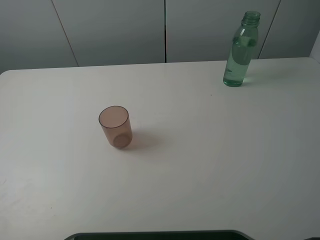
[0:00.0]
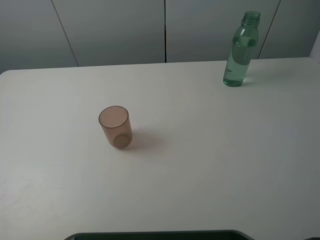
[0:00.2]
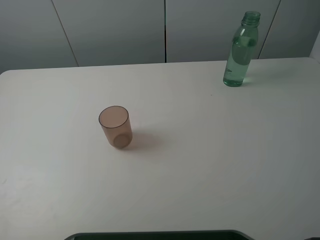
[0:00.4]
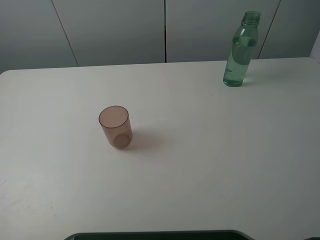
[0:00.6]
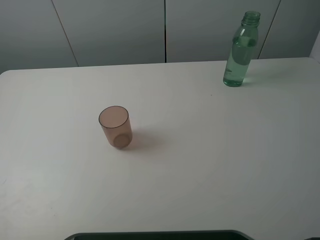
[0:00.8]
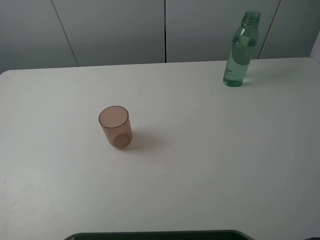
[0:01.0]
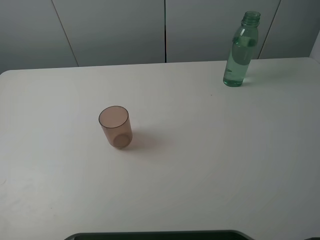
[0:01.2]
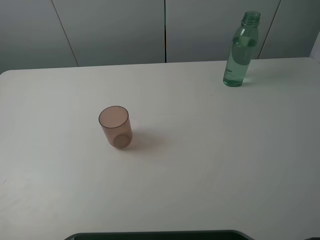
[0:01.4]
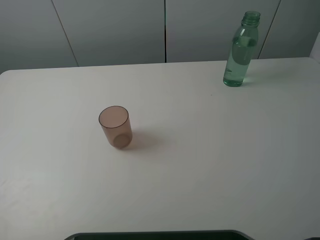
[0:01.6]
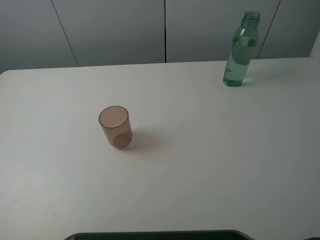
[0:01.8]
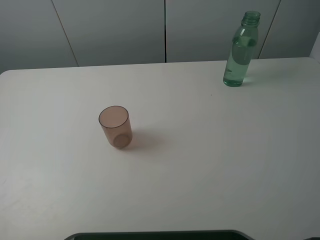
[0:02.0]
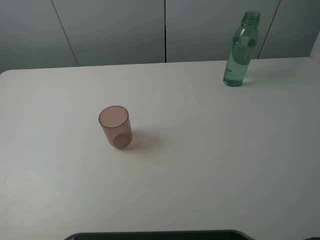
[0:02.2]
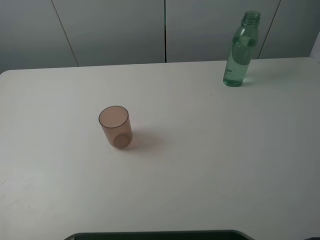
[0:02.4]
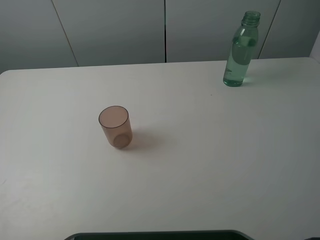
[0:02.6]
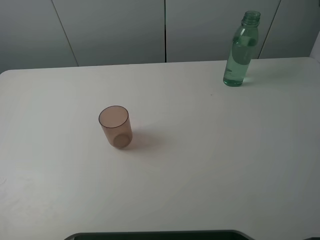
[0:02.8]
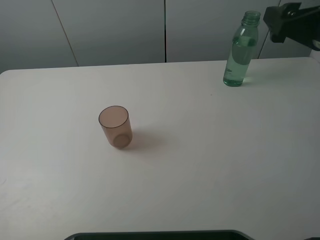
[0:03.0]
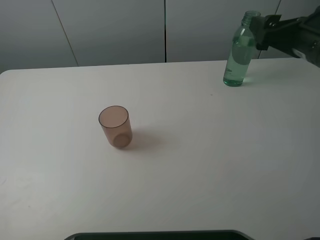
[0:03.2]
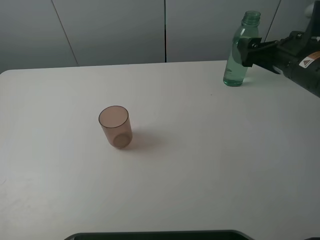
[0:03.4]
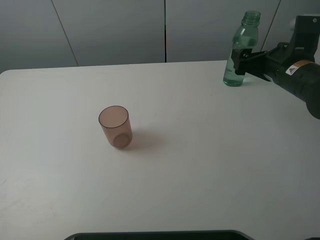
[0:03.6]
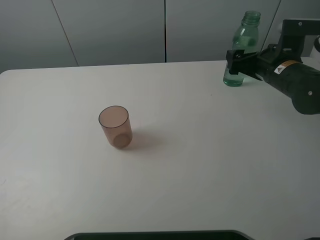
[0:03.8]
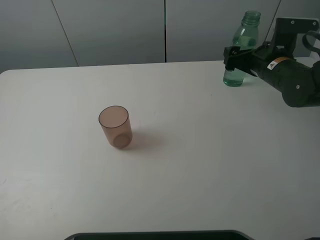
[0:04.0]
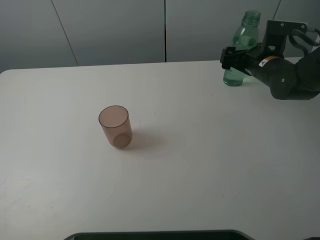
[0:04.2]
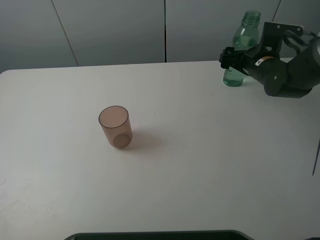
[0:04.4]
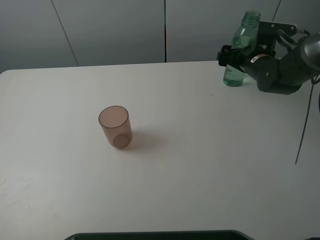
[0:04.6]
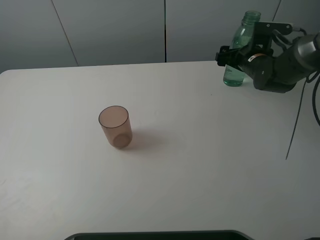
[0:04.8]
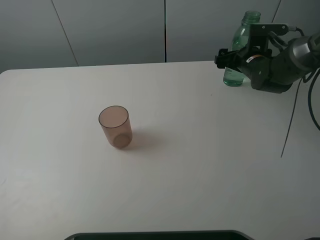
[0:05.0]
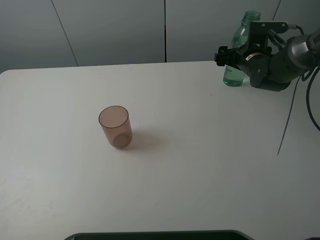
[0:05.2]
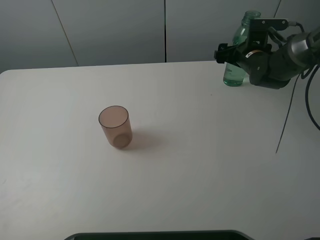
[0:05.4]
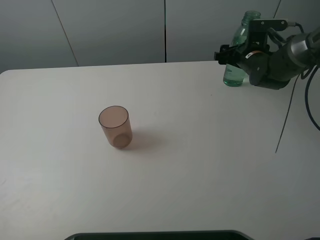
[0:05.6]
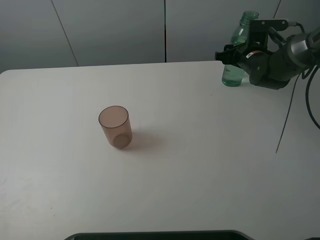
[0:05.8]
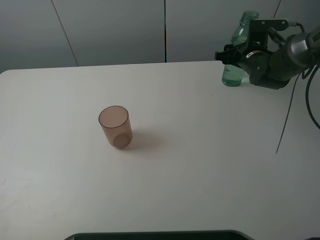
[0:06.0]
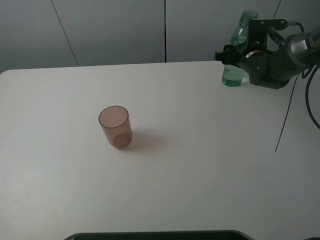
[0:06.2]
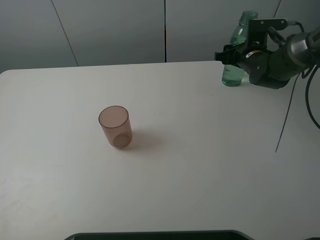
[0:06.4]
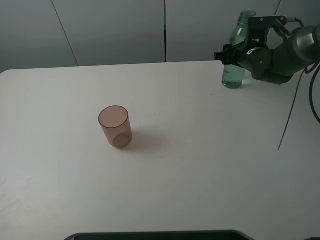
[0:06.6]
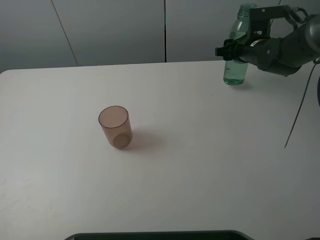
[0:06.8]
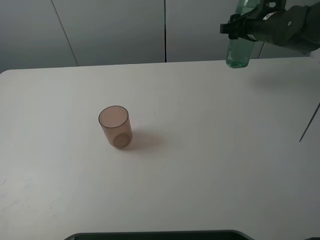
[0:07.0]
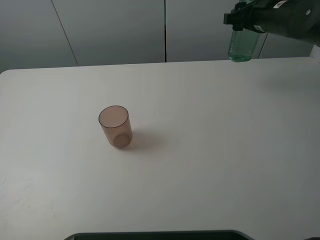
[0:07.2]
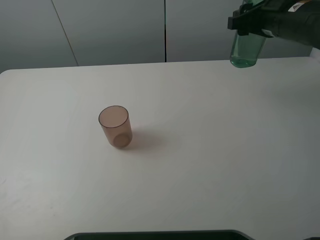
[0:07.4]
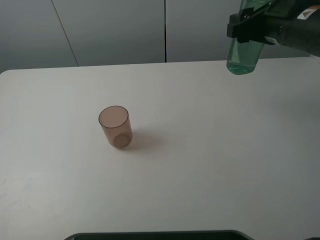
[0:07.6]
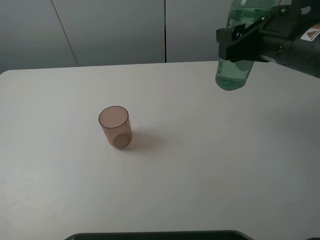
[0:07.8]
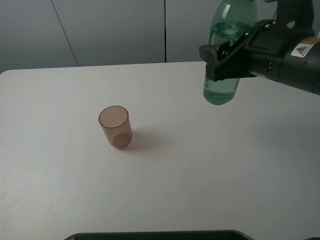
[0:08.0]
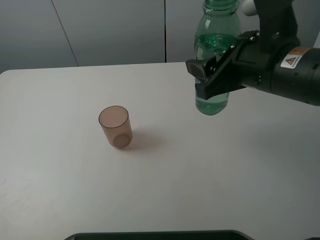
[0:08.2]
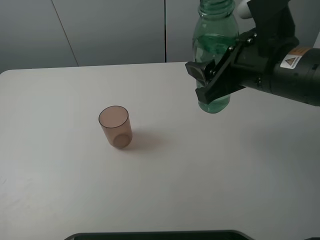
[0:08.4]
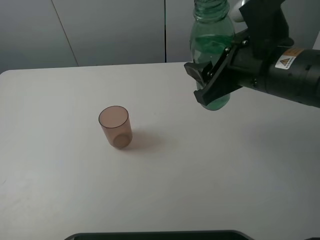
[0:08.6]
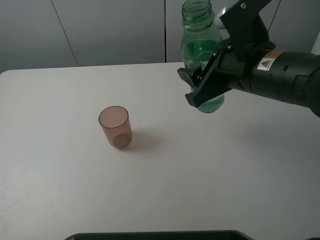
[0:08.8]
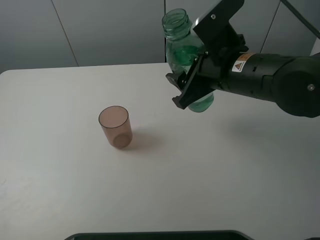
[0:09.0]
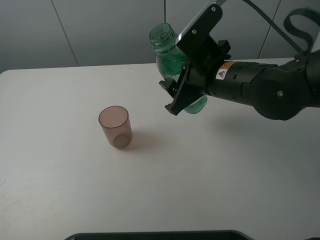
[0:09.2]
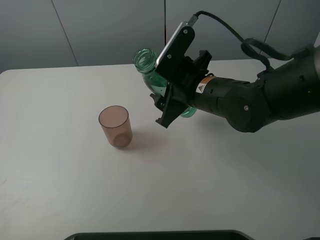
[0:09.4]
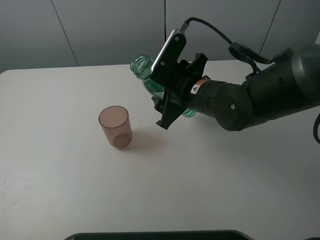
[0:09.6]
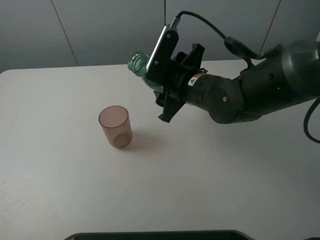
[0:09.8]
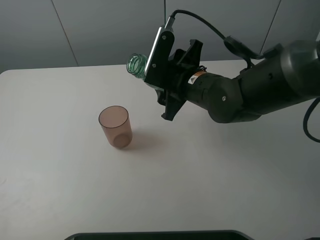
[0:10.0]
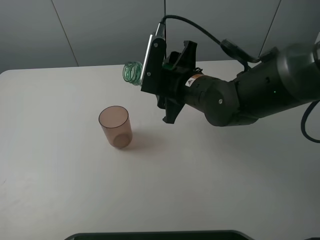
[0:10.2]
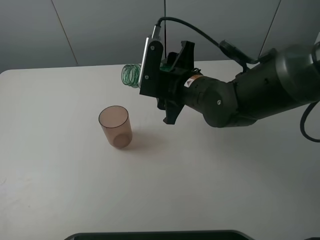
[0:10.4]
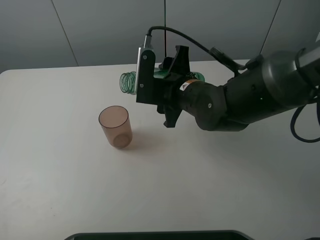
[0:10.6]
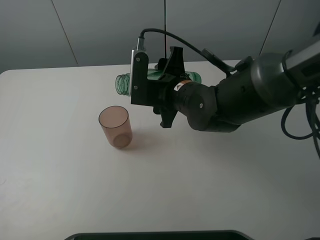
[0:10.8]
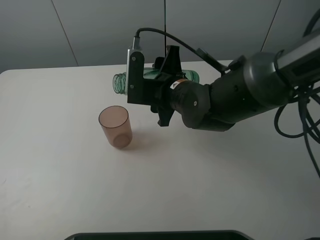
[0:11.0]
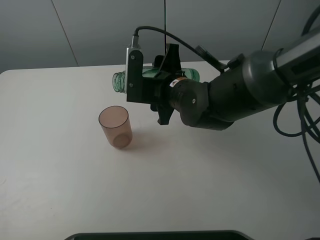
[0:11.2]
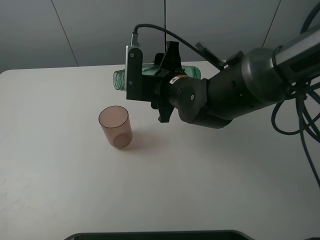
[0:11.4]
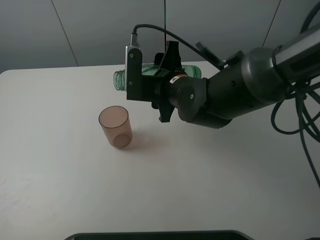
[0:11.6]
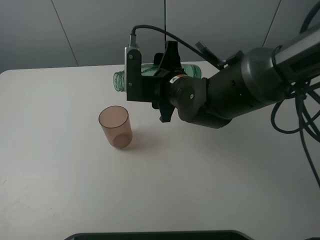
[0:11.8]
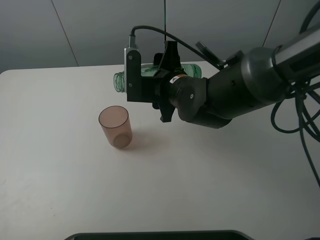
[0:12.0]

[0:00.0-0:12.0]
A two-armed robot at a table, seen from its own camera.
Task of the whole recording: pick up the bottle filled with water and pour it into the pink cup.
Step, 0:00.0 to 0:06.0: Grasp the green bottle with the right gripper.
0:00.0 to 0:01.6: Neither gripper changes place.
0:01.6 to 0:03.0: The right gripper goes about 25 cm forward.
0:03.0 to 0:04.4: The right gripper heads forward and downward, covering about 20 cm.
0:04.4 to 0:06.0: The right gripper closes up.
0:06.0 to 0:07.6: The right gripper travels upward and backward by about 20 cm.
0:07.6 to 0:09.0: The right gripper travels to the left and downward by approximately 10 cm.
0:09.0 to 0:10.4: The right gripper is displaced to the left and downward by about 5 cm.
0:10.4 to 0:12.0: There are only small adjustments of the grippers.

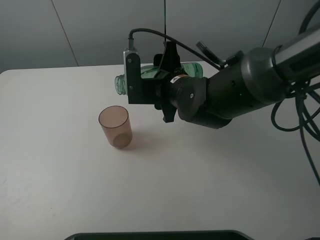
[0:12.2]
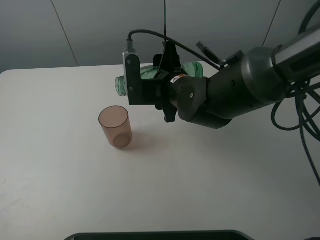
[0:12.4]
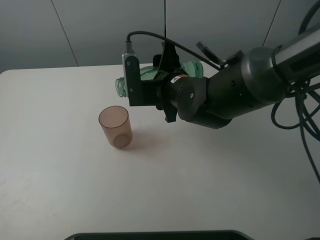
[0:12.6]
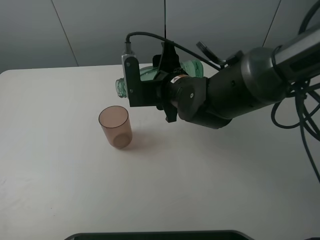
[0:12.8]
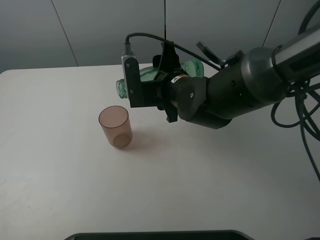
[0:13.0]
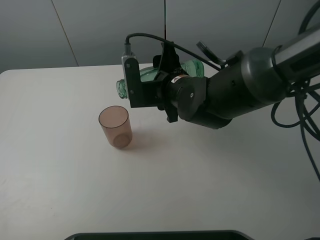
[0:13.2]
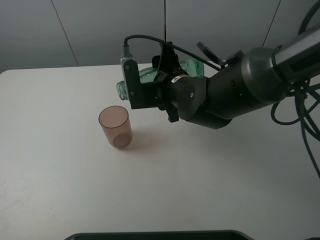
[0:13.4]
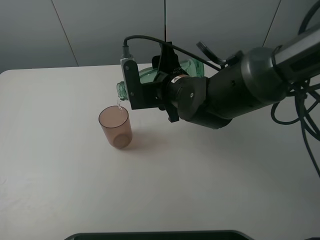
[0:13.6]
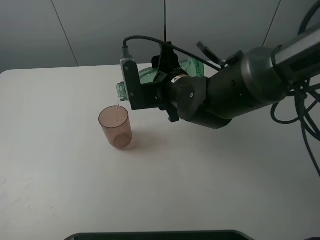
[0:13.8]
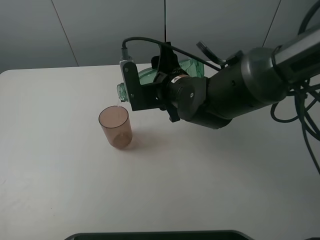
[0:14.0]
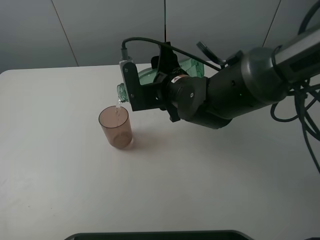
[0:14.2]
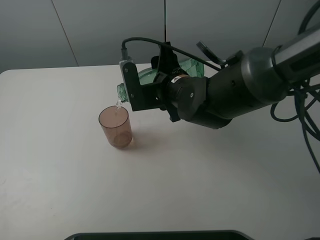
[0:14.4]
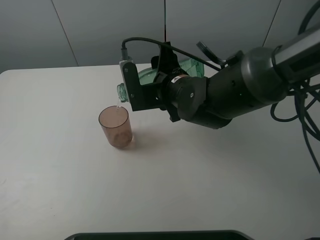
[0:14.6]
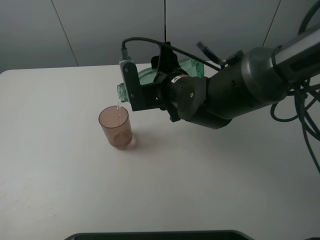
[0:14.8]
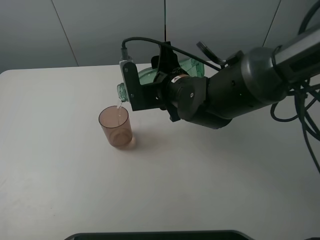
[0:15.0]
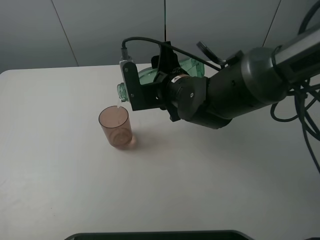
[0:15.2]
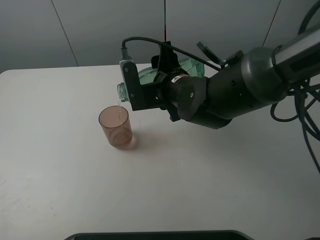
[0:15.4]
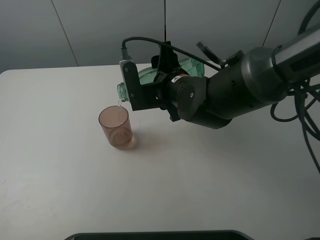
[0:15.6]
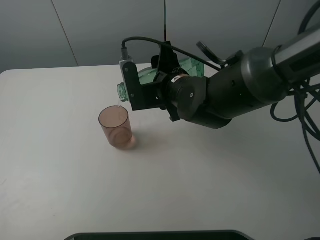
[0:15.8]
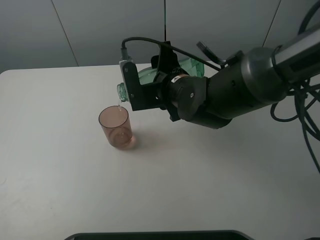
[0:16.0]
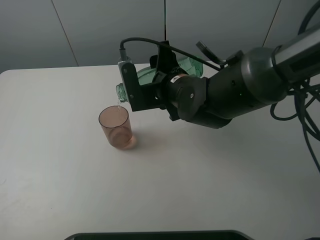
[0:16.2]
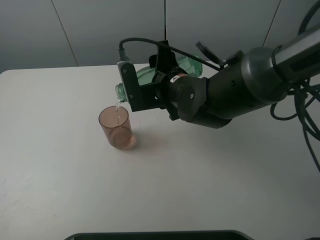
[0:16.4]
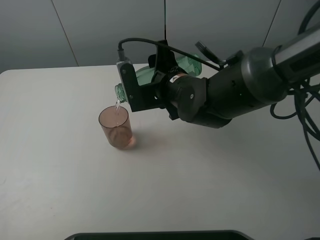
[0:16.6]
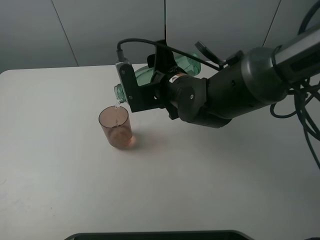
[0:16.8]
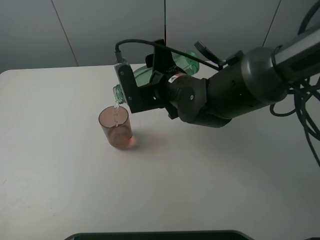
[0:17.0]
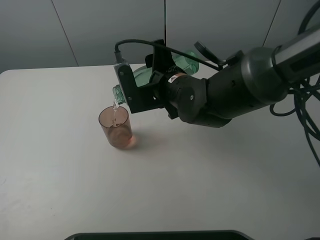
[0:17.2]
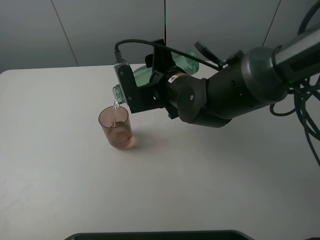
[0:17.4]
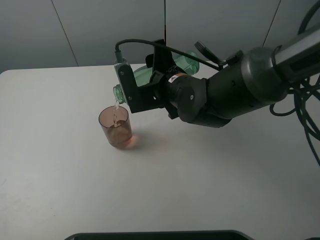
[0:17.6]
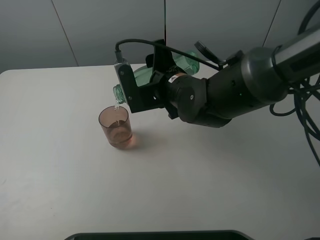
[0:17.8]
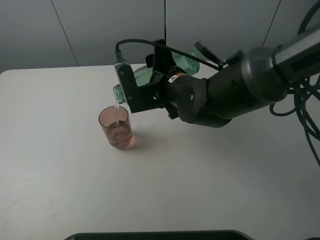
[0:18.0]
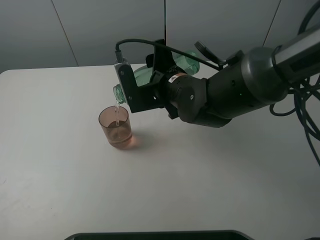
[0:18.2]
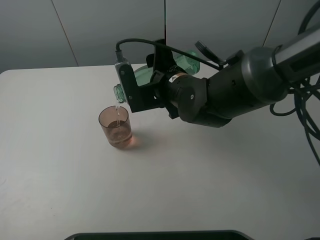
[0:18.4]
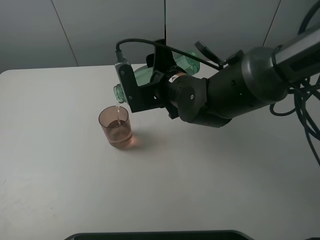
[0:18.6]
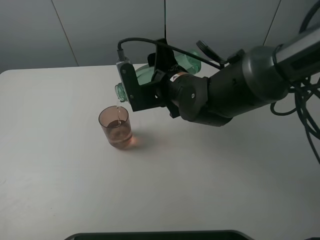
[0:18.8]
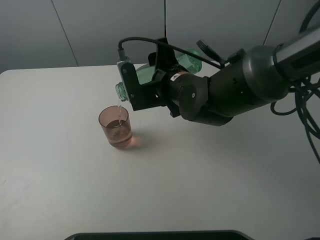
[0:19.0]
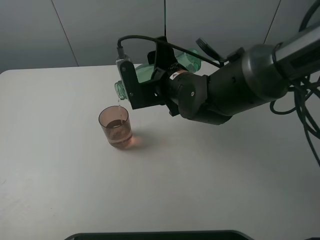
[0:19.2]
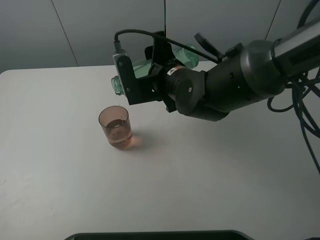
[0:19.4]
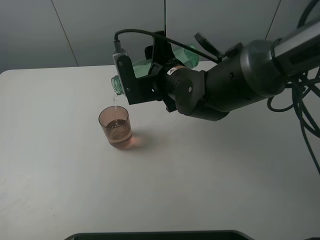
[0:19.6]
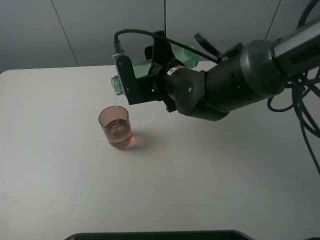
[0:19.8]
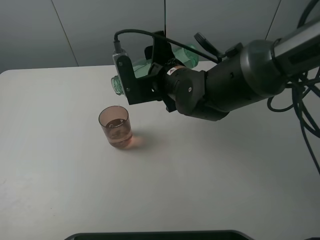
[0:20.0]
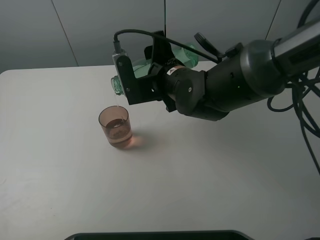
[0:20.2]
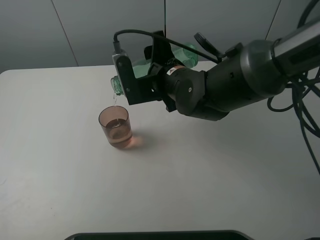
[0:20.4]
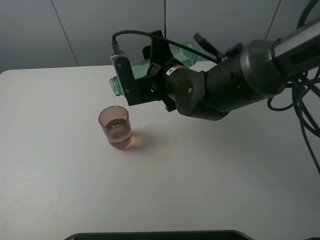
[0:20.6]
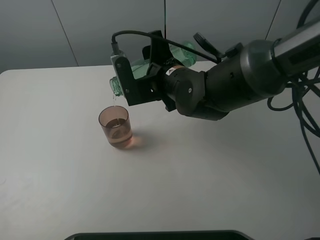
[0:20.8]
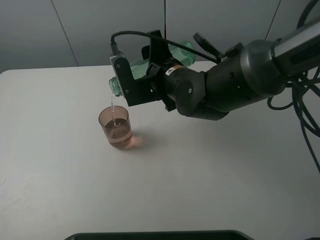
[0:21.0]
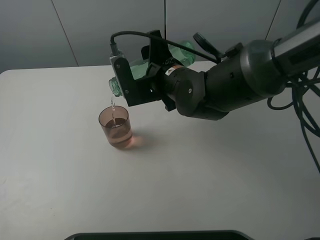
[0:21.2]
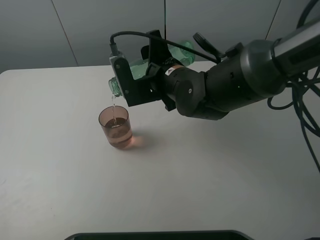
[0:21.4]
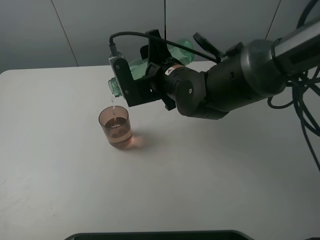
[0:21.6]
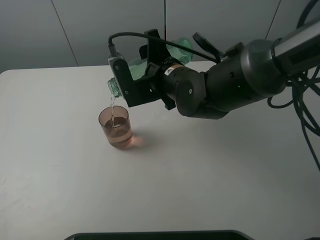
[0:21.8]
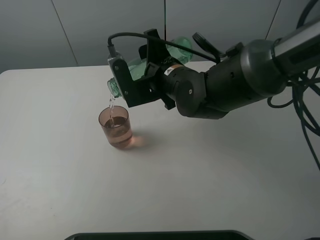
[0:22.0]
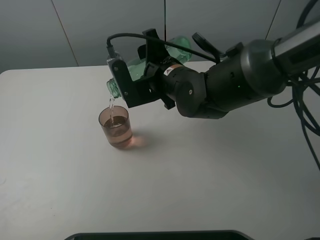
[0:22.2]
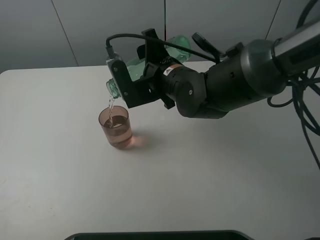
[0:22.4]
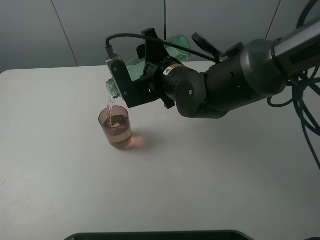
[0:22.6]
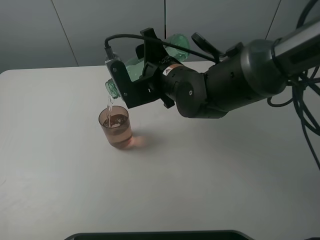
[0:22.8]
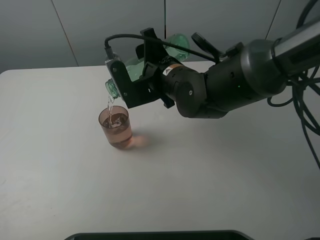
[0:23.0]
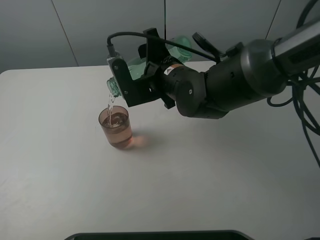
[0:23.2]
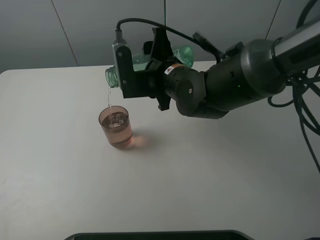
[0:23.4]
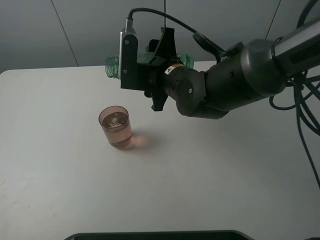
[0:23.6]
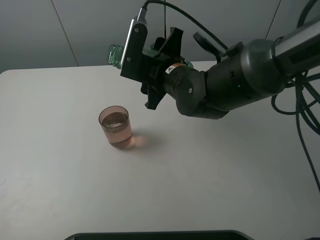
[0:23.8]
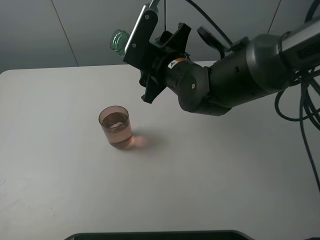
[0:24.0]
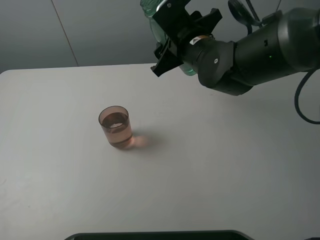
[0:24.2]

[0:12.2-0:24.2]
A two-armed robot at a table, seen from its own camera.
Task of the whole recording: pick up the bottle filled with water and pour it into the pink cup.
Step, 0:12.2 to 0:23.6: Pour water from green bottle to pink cup with the right gripper.
0:12.2 to 0:13.8: There are only small adjustments of the grippers.
0:13.8 to 0:16.6: Both grippers stay about where they are.
0:16.6 to 0:19.8: Both grippers stay about where they are.
0:19.8 to 0:21.2: Both grippers stay about where they are.
0:21.2 to 0:22.6: Both grippers stay put.
0:22.6 to 0:24.2: The right gripper moves to the right, some 5 cm.
